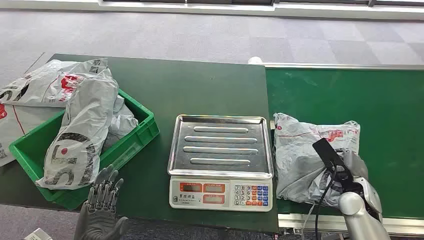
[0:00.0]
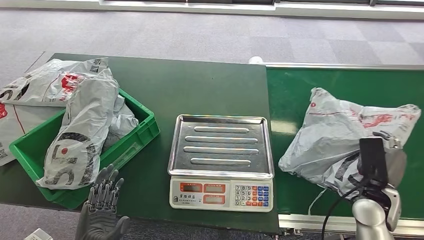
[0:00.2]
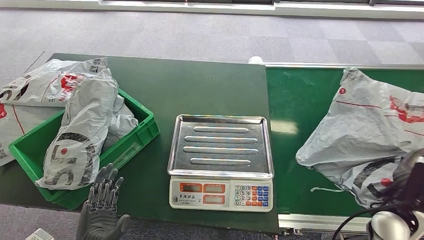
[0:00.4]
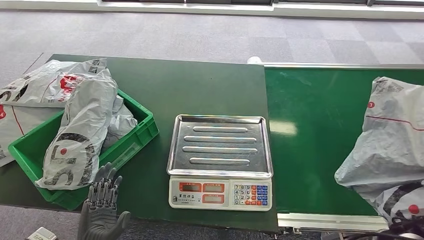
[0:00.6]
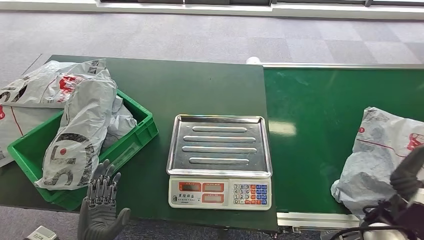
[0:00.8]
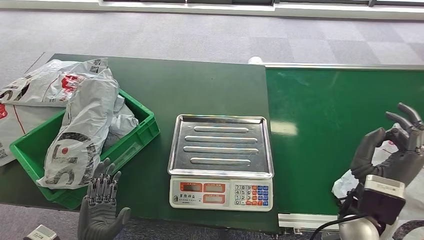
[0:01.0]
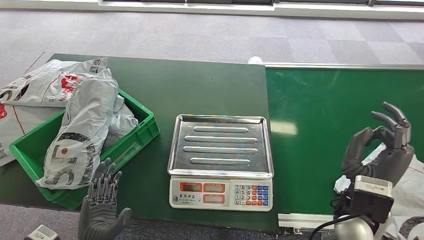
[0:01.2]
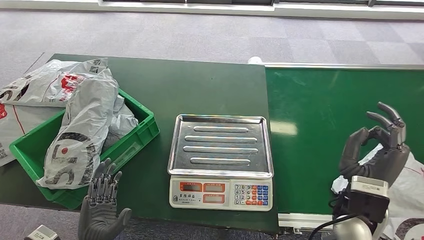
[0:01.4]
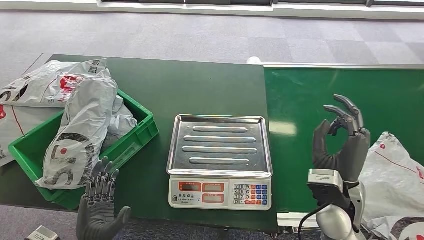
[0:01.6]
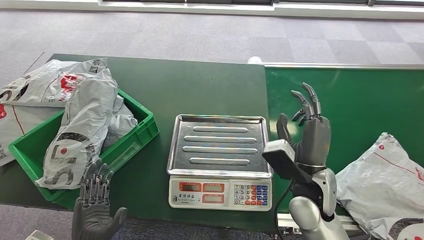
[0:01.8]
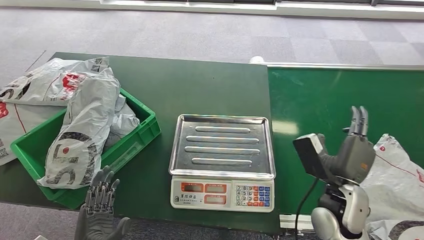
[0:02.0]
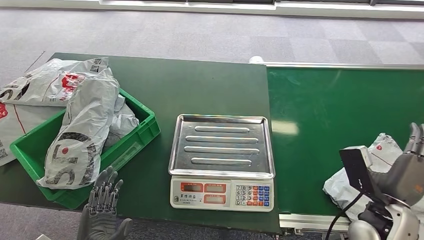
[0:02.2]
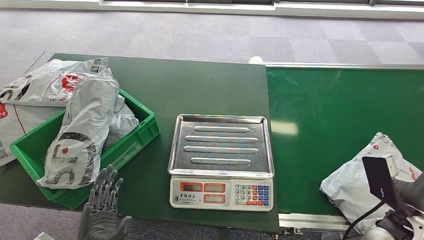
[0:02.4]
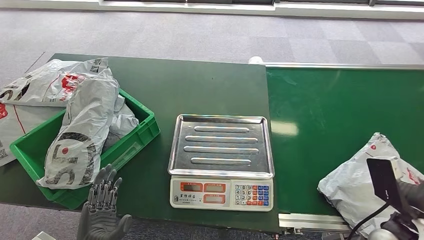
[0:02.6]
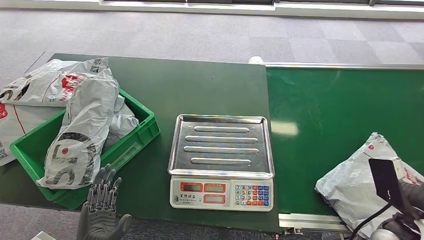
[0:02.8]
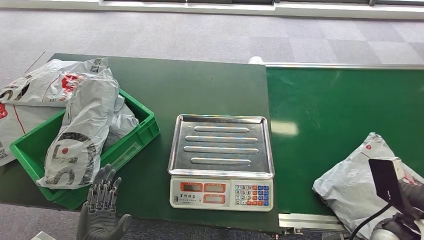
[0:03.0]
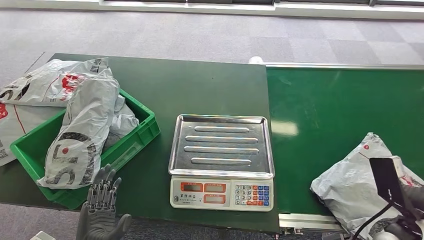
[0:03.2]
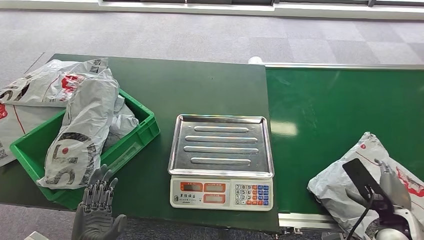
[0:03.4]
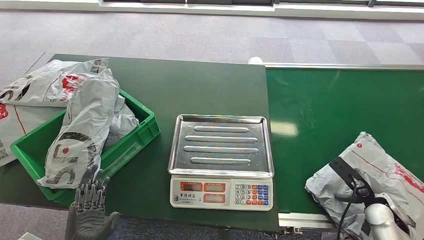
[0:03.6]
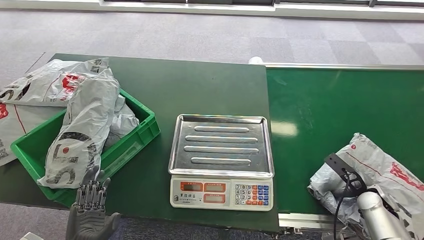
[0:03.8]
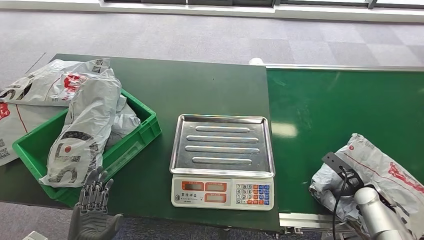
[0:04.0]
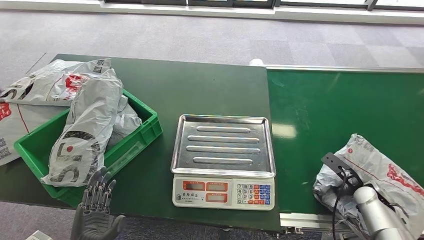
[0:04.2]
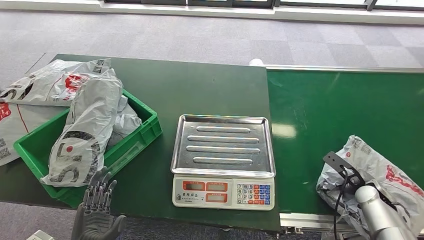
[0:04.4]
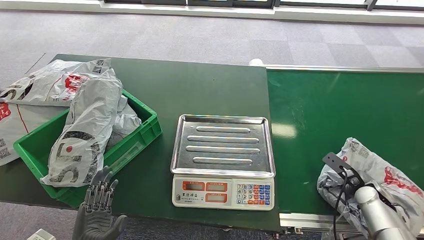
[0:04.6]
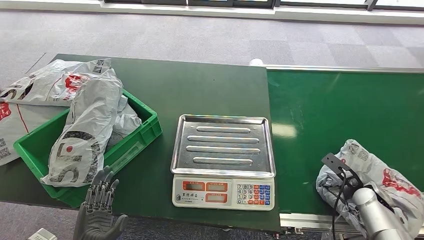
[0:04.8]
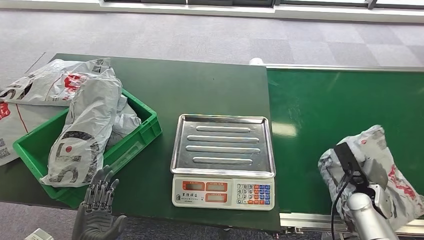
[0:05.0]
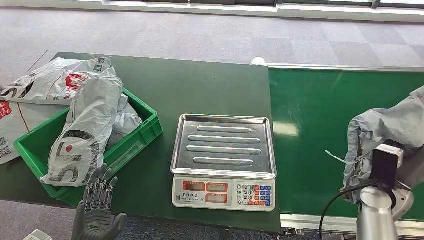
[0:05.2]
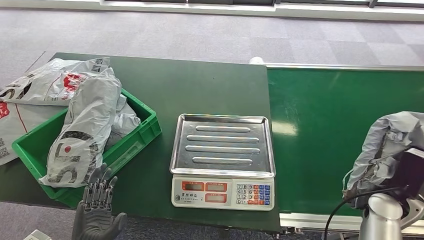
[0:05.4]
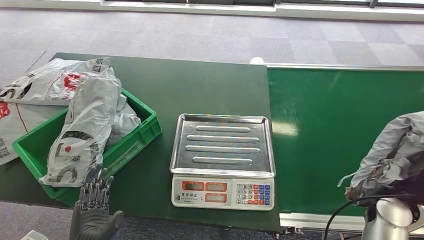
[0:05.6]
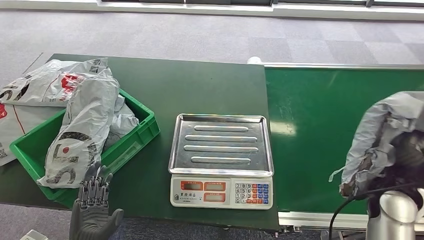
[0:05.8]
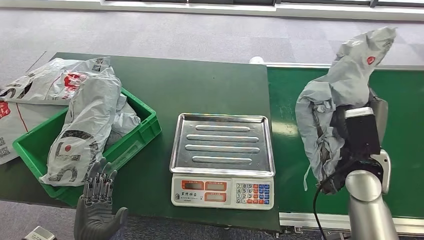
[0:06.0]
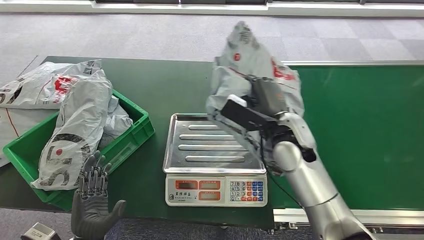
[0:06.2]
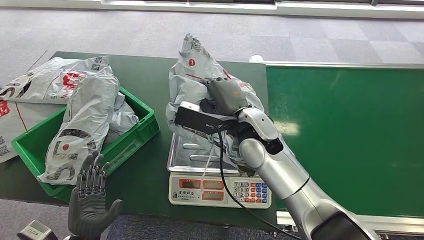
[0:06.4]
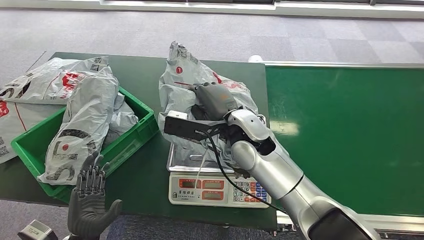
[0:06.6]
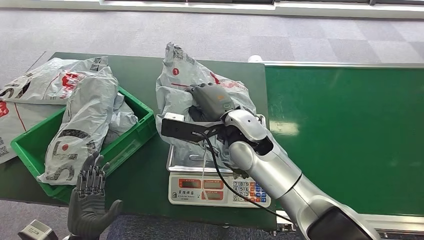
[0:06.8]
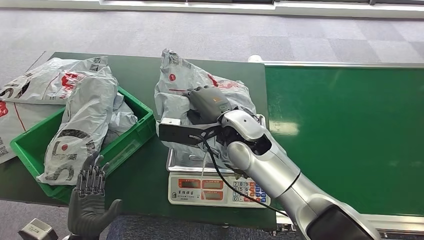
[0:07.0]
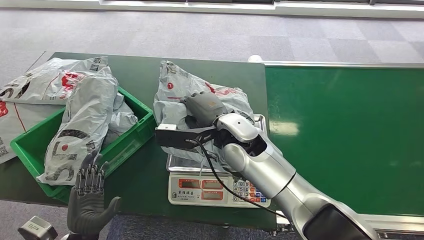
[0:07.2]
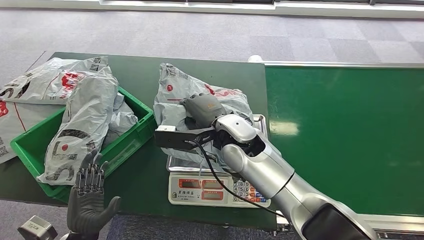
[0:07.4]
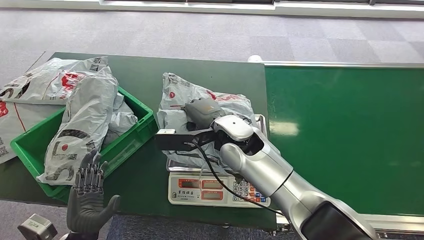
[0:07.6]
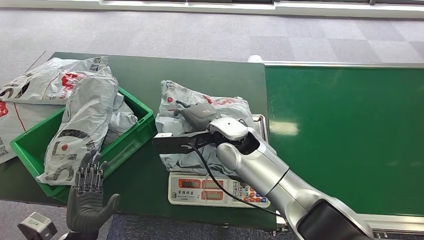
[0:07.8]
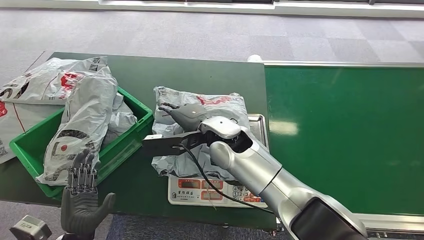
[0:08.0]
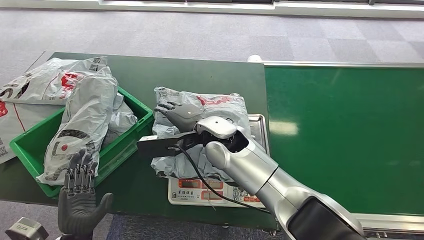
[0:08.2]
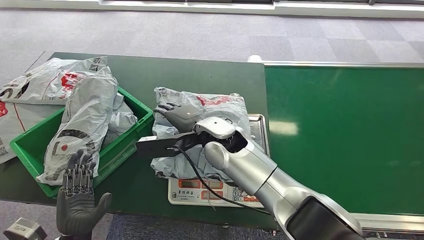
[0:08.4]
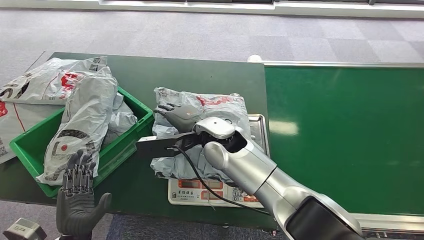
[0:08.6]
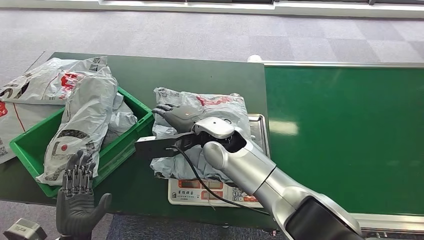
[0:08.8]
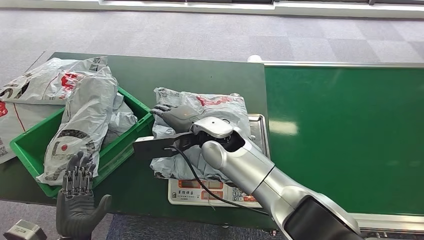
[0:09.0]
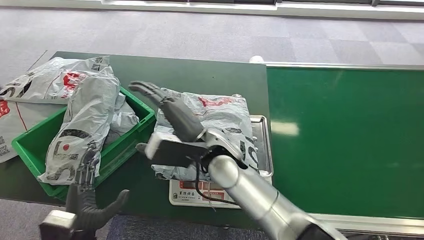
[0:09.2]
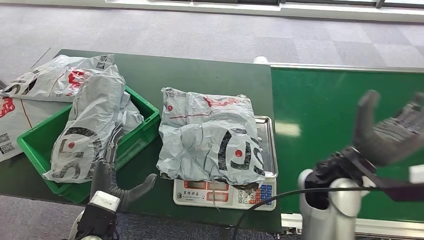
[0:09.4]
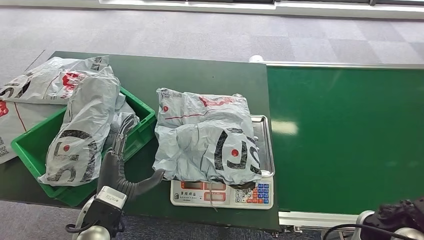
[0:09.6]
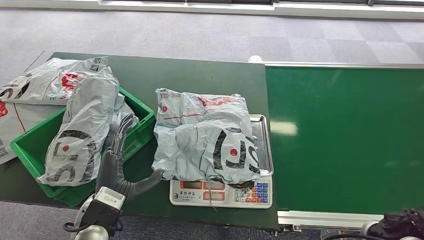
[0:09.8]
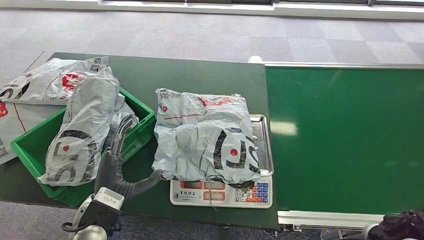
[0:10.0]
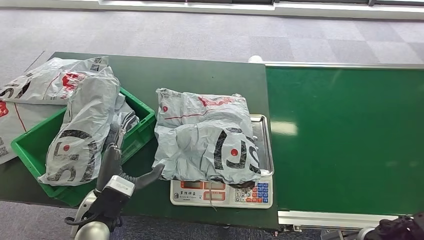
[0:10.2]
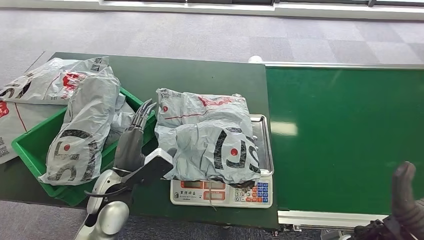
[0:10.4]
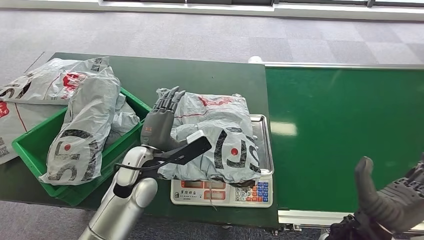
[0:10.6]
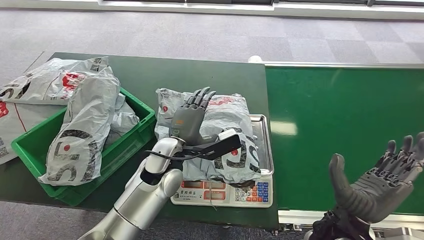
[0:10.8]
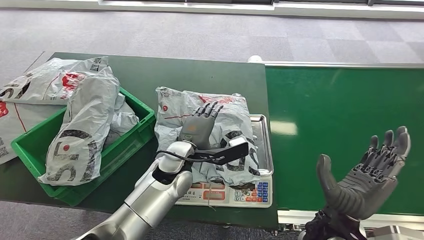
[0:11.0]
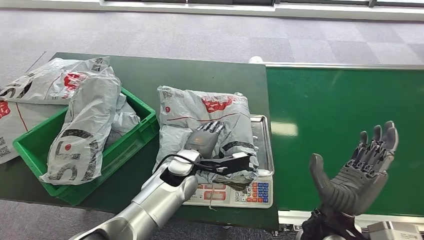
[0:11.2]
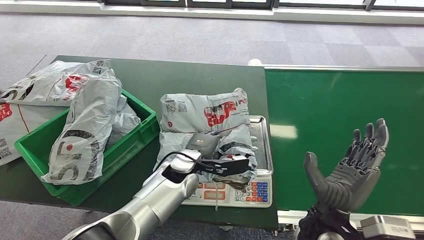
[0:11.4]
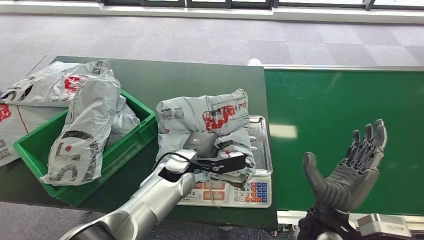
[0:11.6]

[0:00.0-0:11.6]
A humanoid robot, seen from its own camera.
Step, 0:00.0 to 0:05.6: Pick up the package from the conveyor belt.
Step, 0:05.8 to 0:07.4: Place the package onto the inbound machine.
0:01.4 to 0:02.8: The right hand shifts some 10 cm to the right.
0:07.2 to 0:08.8: The hands stay close to where they were, moving slightly.

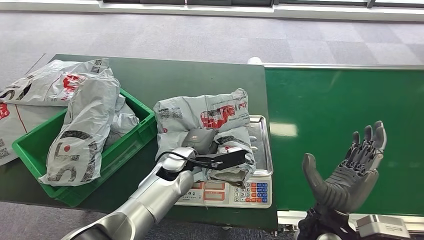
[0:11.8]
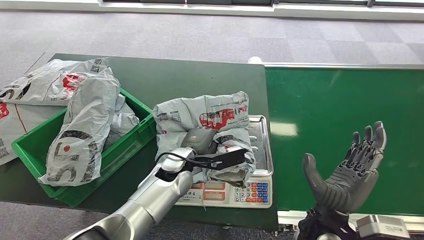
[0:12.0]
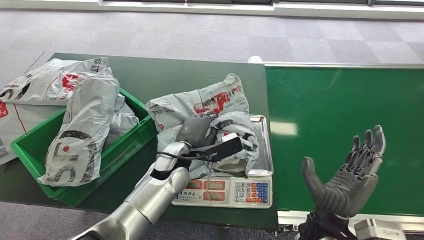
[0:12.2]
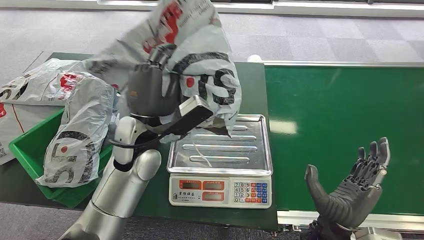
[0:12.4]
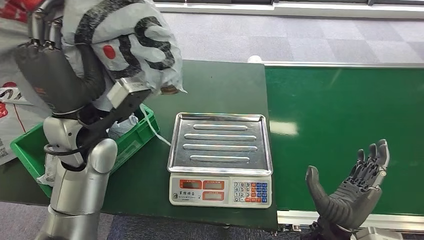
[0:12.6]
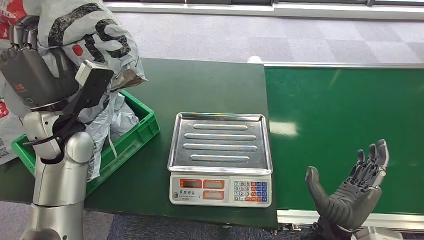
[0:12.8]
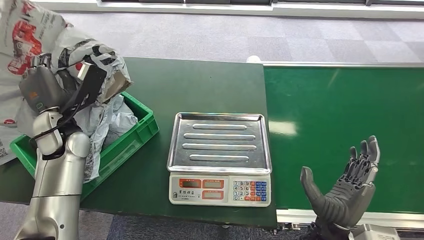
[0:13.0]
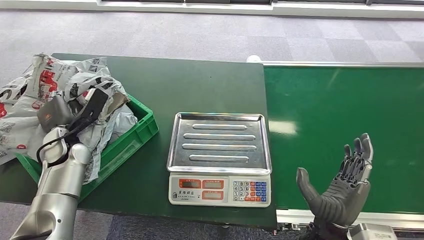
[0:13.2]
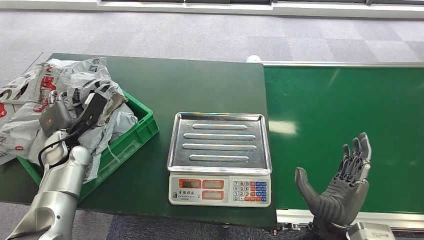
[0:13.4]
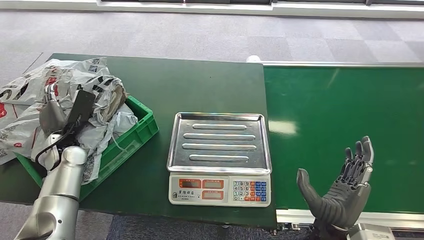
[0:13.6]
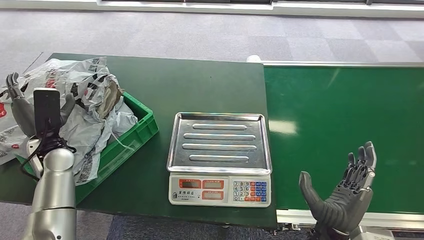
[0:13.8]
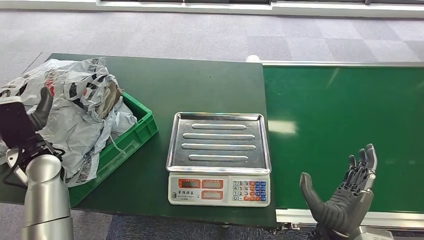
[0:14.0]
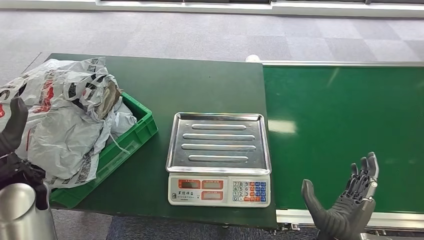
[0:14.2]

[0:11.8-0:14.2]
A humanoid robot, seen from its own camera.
Step, 0:13.0 to 0:14.2: Place the package into the parcel locker.
